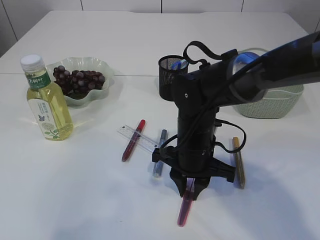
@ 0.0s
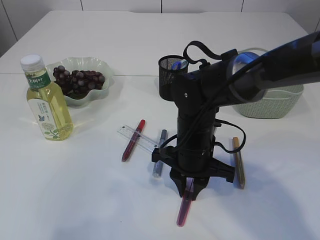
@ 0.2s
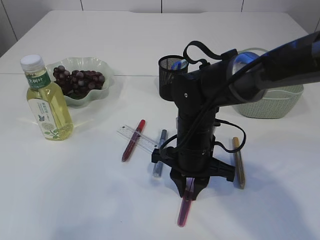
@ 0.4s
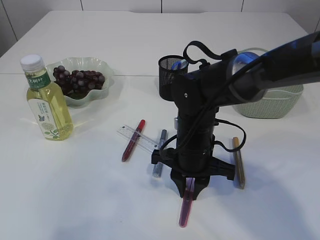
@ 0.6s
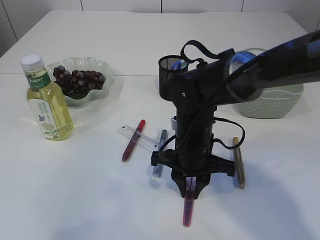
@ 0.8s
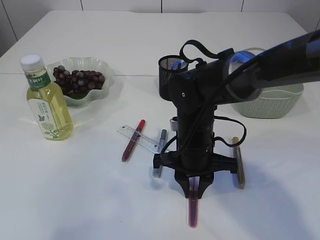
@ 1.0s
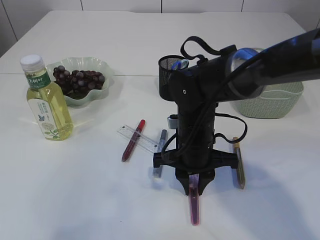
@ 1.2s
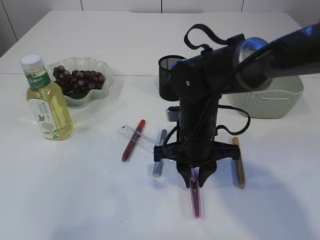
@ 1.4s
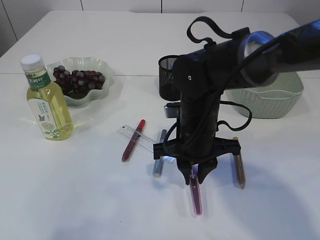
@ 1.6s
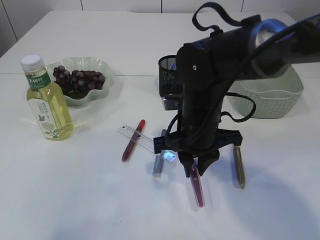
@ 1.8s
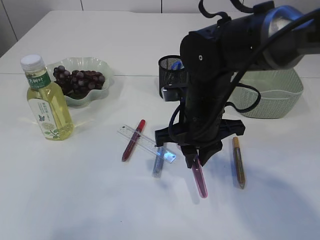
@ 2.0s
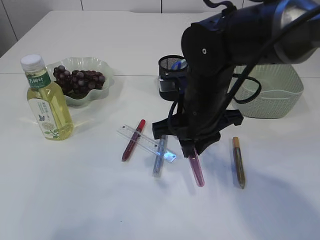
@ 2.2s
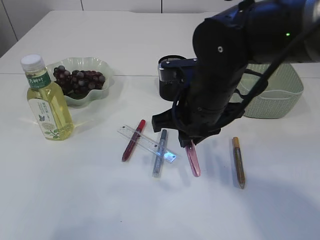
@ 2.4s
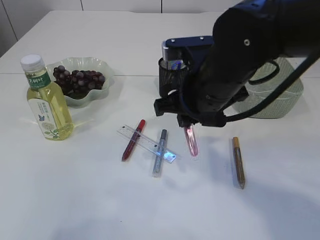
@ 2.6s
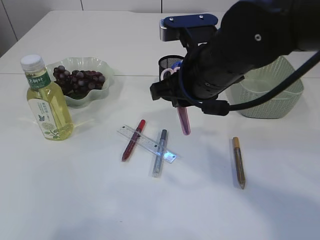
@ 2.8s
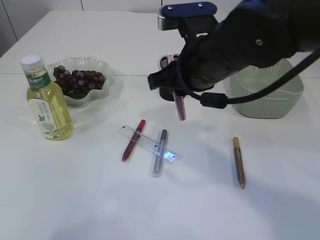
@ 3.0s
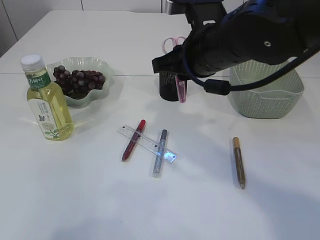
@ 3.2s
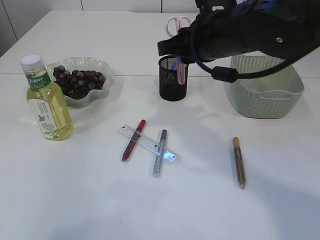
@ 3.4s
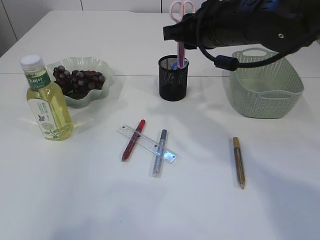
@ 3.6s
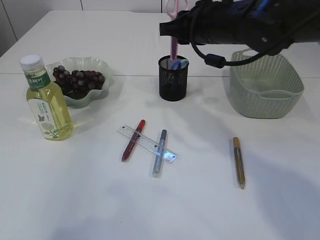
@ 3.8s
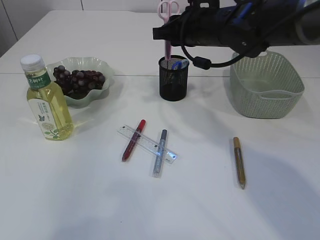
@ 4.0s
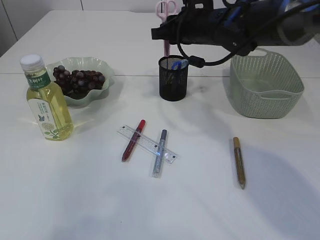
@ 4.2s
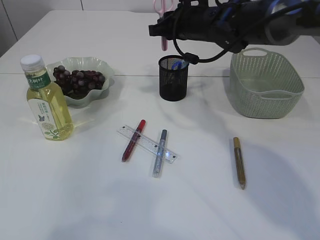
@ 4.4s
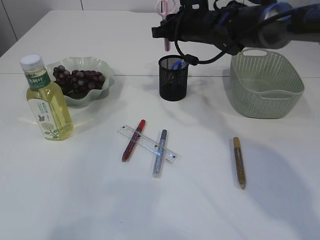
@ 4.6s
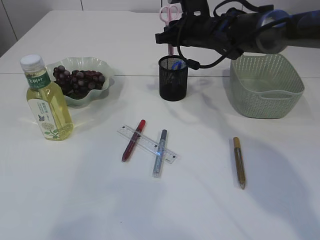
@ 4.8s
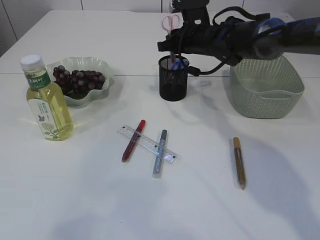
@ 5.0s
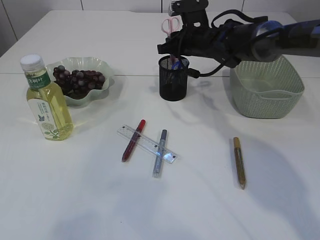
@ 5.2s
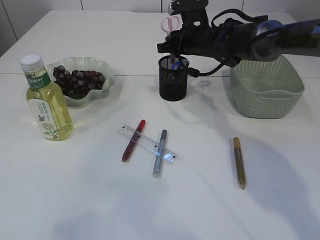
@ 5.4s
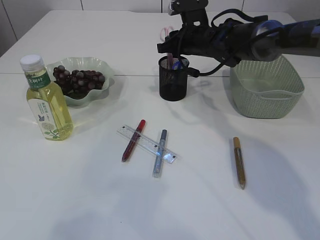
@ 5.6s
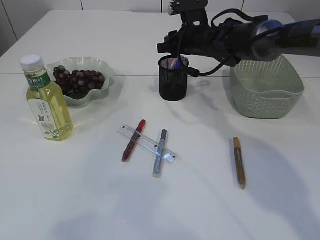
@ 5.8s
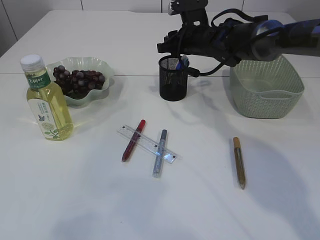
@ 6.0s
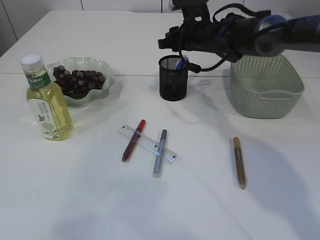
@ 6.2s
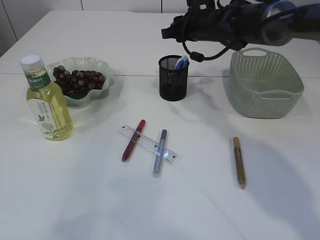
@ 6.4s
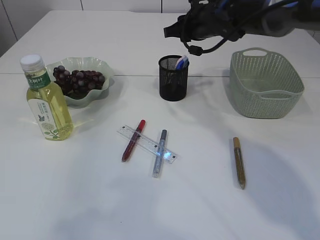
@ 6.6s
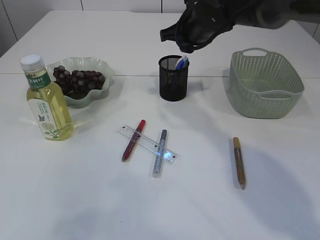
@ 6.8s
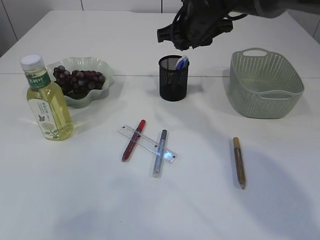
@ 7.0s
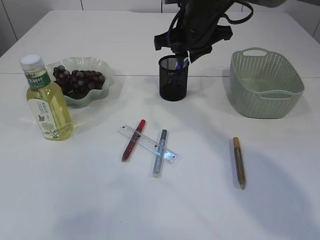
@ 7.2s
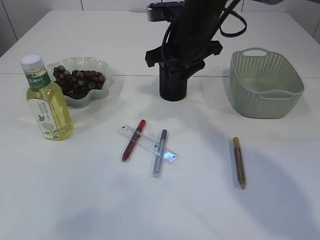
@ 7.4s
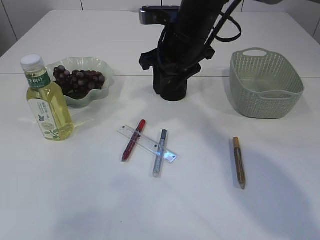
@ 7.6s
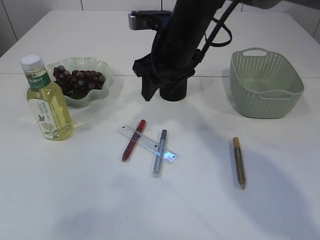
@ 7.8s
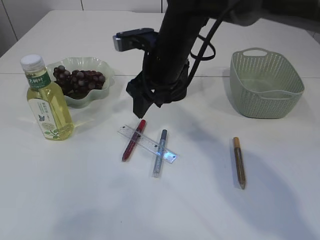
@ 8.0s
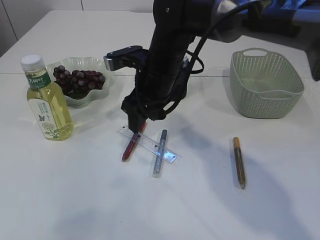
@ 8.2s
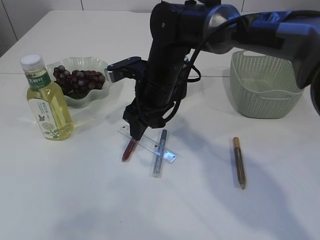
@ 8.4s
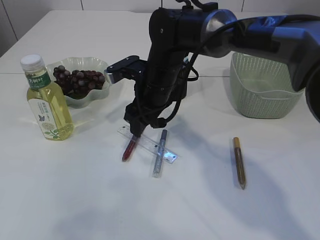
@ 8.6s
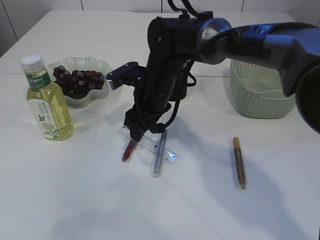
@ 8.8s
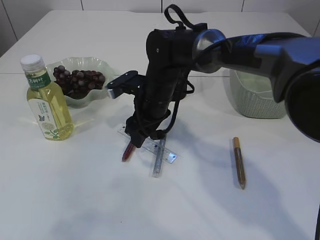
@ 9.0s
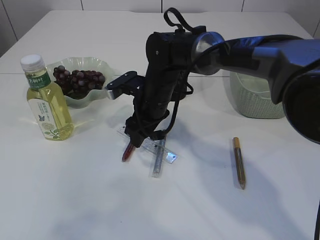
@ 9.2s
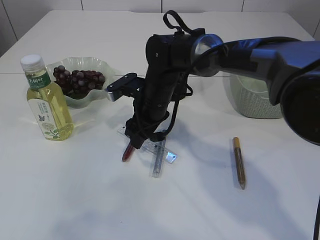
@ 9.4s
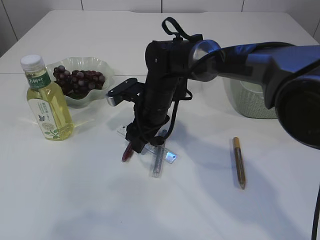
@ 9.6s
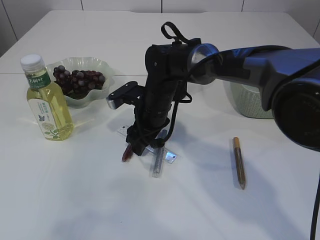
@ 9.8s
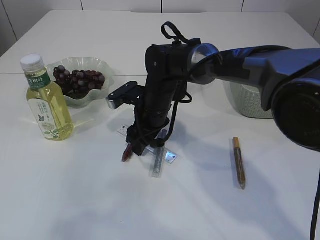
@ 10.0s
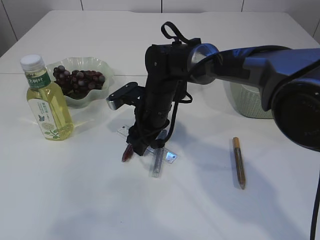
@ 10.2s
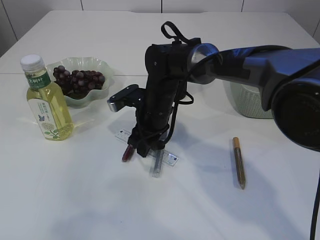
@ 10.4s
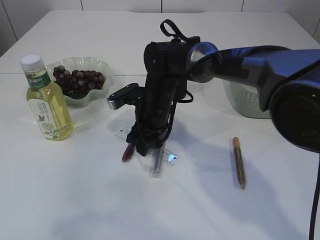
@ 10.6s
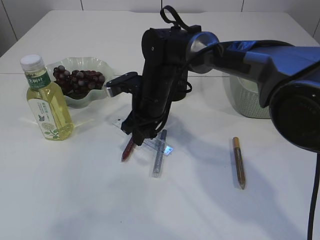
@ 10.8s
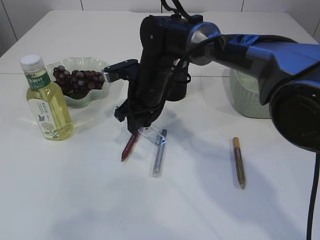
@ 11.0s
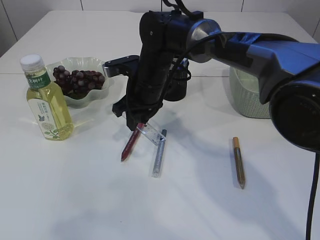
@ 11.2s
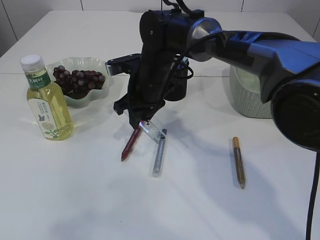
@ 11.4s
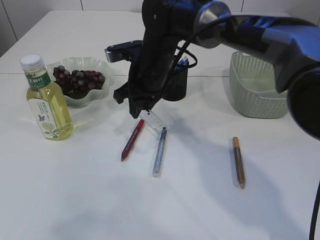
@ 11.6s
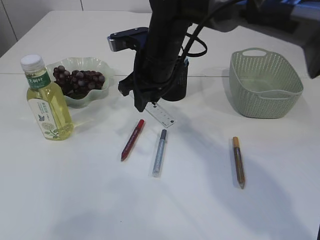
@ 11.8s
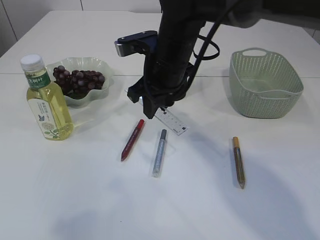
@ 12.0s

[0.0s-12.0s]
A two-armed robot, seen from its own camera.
Step, 2.0s to 6.0s: Place the pink scissors into the pen holder.
Step, 6.2s to 11.4s: pick up the ruler.
1.6s to 3.0s: The right gripper heads upward, covering roughly 10 cm.
3.0s to 4.4s: The right gripper is displaced forward by approximately 15 cm.
4.4s to 6.0s: The right gripper travels downward by about 5 cm.
6.0s to 7.6s: The right gripper travels backward and upward by some 15 cm.
7.6s to 9.0s: The right gripper is displaced downward and to the left by about 15 cm.
9.0s to 10.4s: The right gripper closes its fingers.
10.4s to 12.0s: The right gripper moves upward, roughly 10 cm.

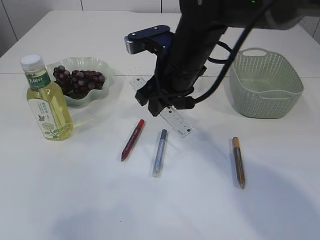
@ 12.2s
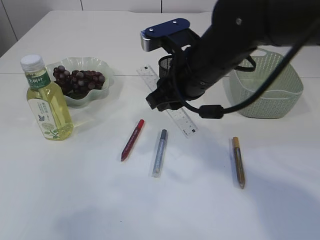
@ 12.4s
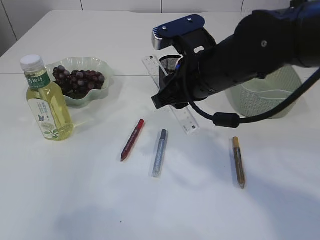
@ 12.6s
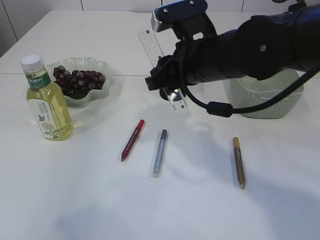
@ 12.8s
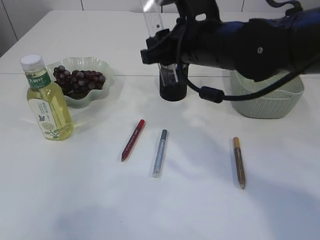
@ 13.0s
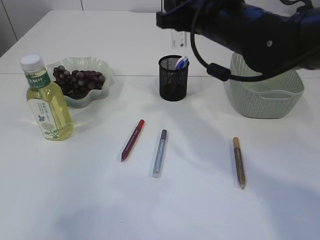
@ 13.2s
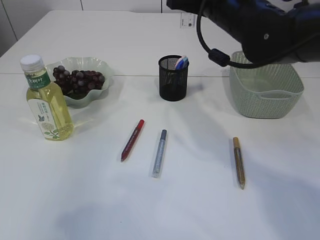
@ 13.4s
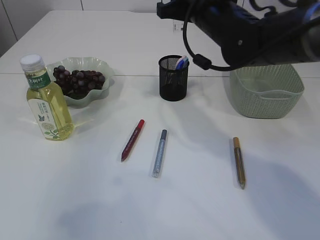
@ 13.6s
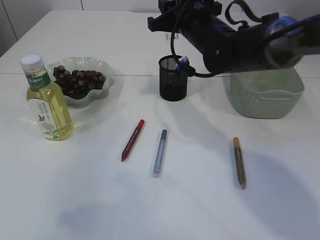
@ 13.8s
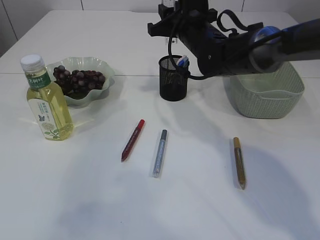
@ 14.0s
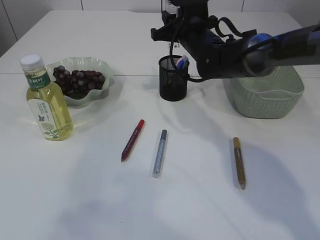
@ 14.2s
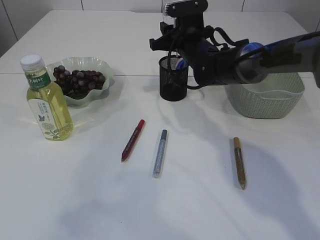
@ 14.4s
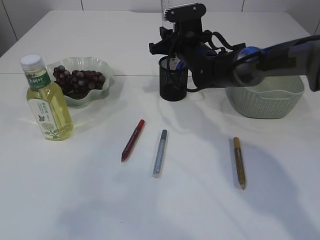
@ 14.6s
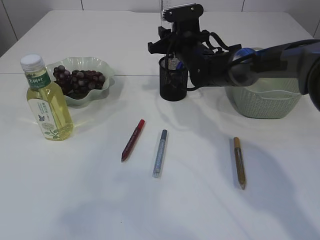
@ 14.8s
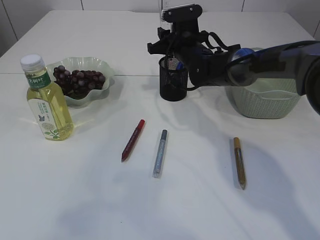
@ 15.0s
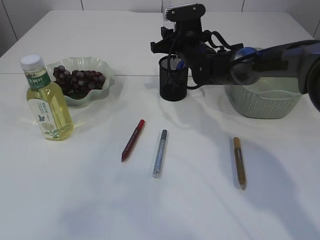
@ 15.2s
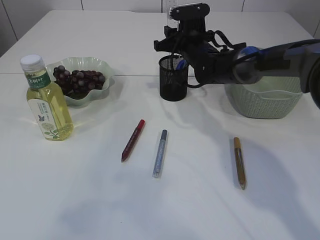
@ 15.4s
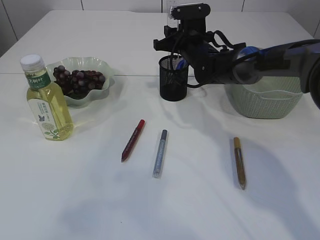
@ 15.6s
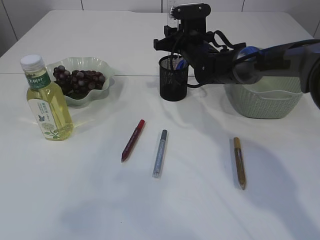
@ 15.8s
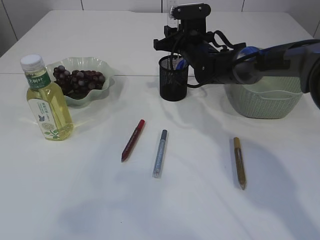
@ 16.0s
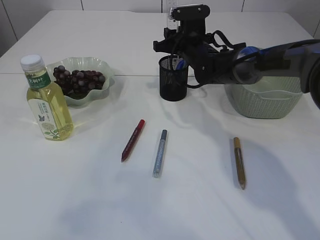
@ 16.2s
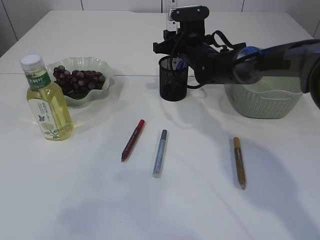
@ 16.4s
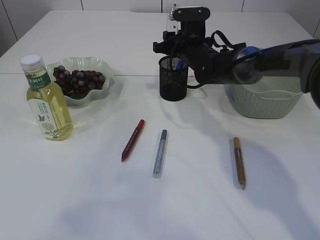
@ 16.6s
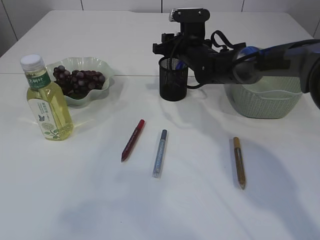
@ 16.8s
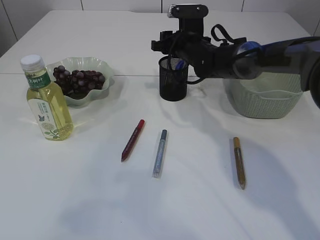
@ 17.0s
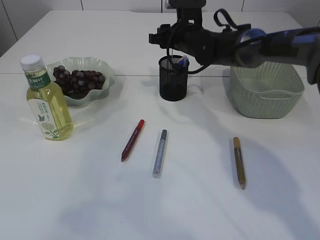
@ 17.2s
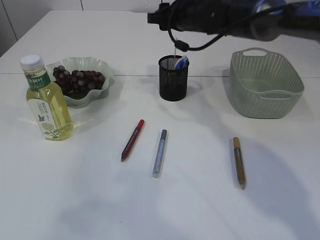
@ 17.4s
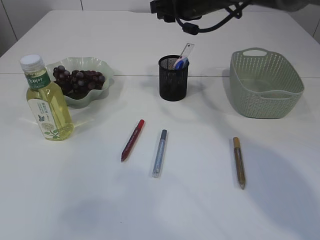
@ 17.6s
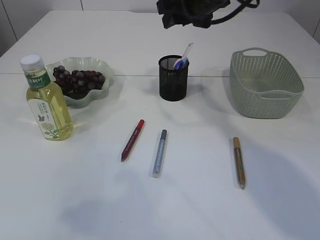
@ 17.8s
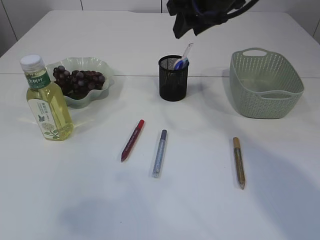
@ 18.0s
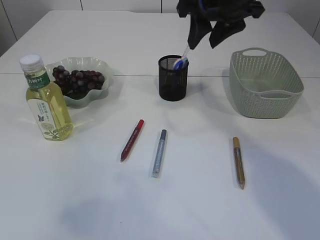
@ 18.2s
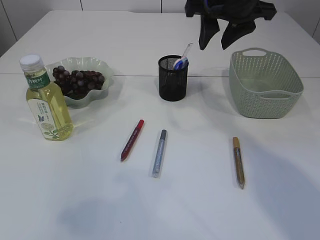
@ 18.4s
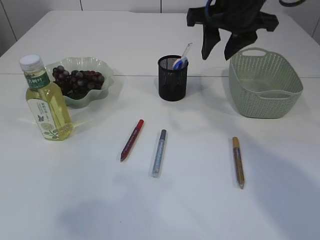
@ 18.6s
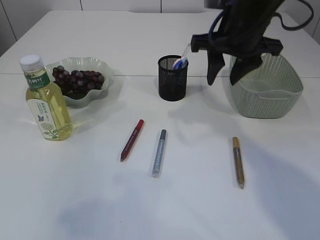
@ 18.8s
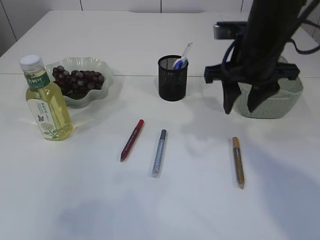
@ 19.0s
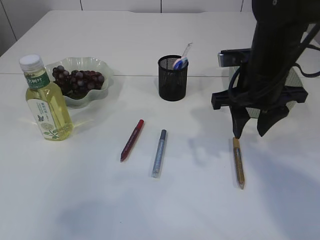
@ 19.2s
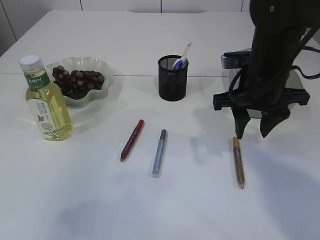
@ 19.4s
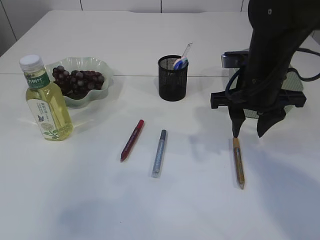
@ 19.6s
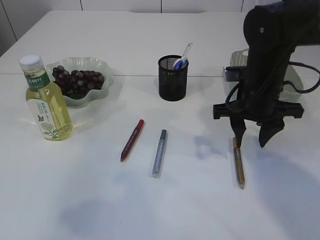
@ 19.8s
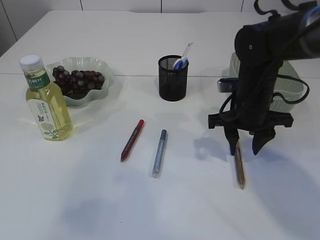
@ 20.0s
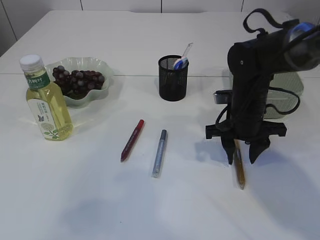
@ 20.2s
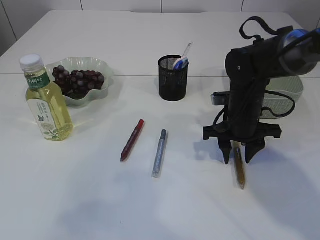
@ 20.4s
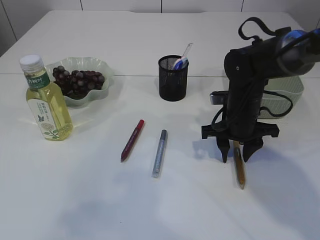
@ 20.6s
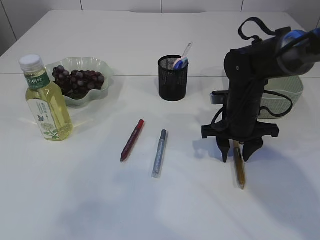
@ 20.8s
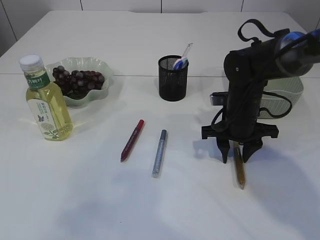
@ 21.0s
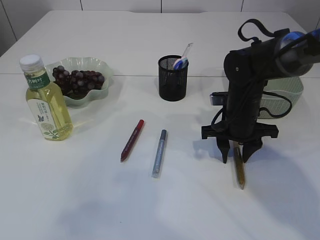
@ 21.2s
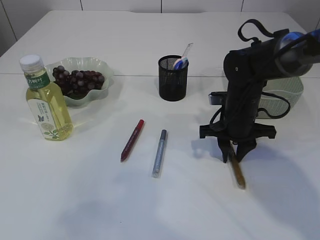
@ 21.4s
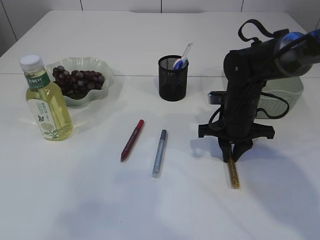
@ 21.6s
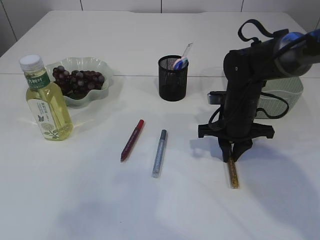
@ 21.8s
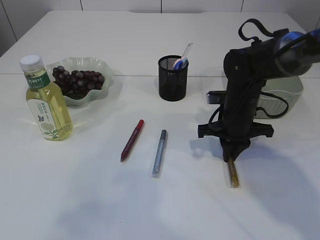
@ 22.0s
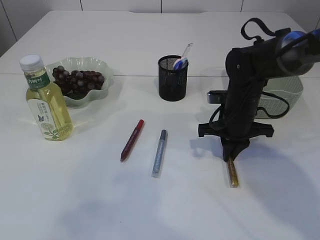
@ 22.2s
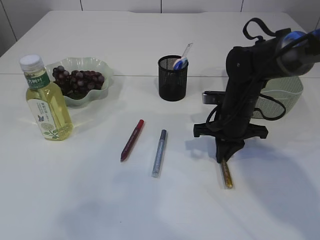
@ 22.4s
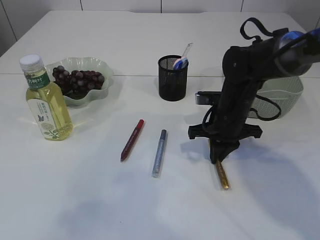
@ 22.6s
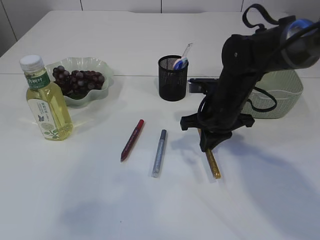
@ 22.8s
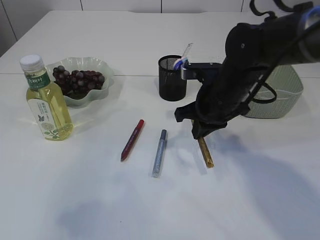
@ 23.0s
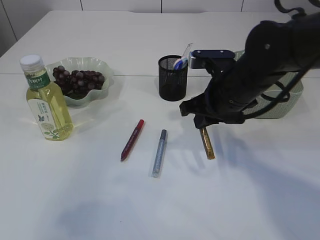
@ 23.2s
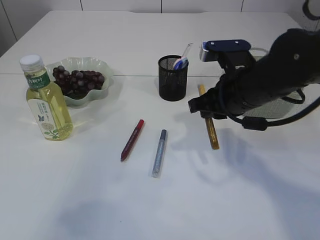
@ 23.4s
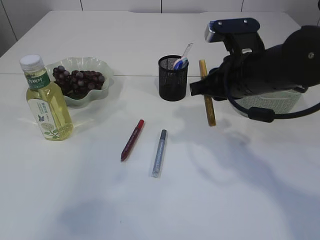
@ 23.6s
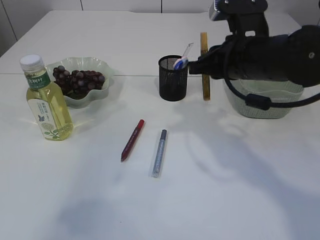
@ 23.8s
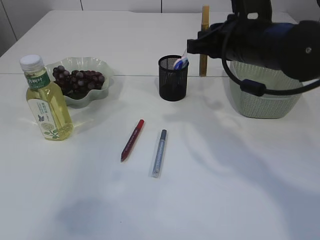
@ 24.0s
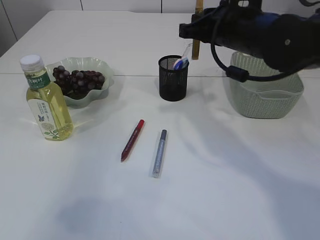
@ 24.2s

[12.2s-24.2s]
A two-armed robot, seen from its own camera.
Step, 12.2s to 17.2s: Place the ruler into the pen holder.
Step, 17.4s to 22.8s: pick up the yellow glue.
12.2s to 13.8s: The right gripper goes approximately 10 cm forward.
13.8s to 15.2s: The right gripper travels downward and forward by approximately 10 cm.
15.2s to 16.6s: The grippers stay close to where they were, moving slightly.
16.6s to 18.2s: The right gripper is displaced upward and backward by about 20 cm.
18.2s to 19.8s: The right gripper travels downward by about 15 cm.
19.8s to 21.2s: The right gripper heads downward, covering approximately 10 cm.
21.2s to 22.6s: The right gripper closes.
22.6s to 24.2s: The right gripper moves upward, about 15 cm.
